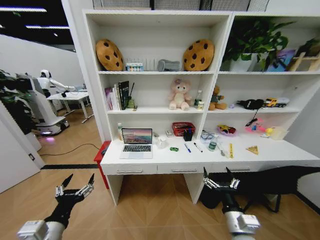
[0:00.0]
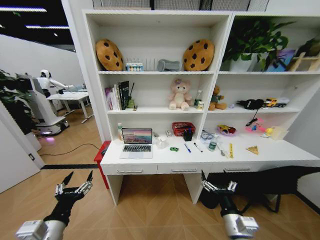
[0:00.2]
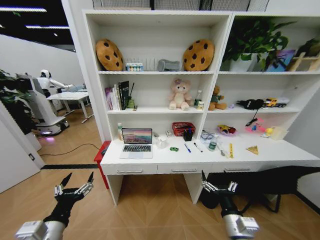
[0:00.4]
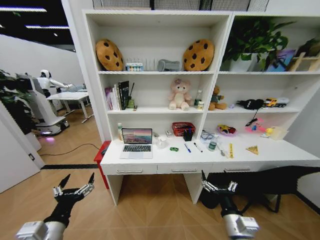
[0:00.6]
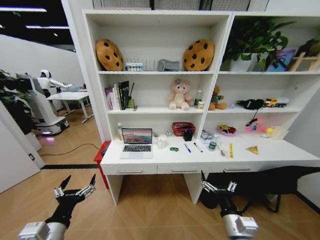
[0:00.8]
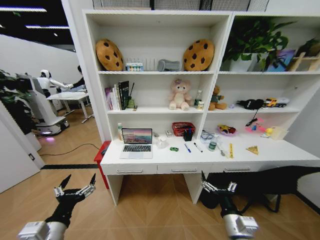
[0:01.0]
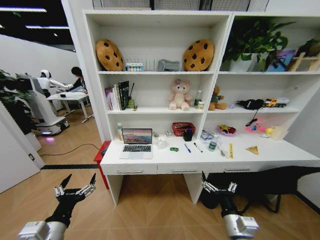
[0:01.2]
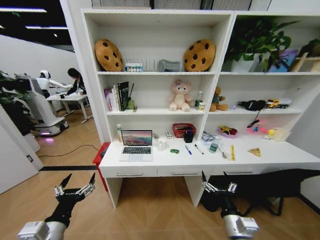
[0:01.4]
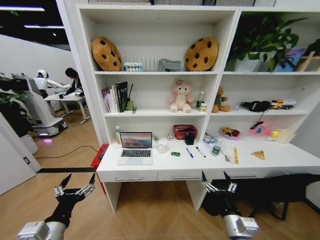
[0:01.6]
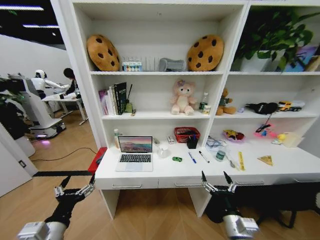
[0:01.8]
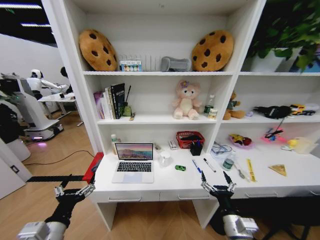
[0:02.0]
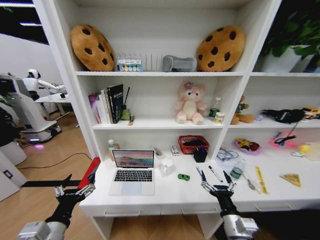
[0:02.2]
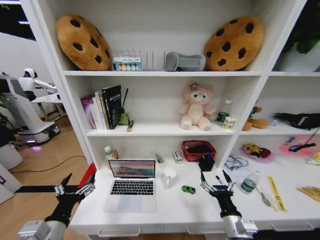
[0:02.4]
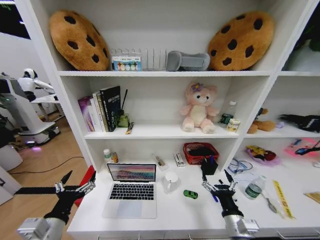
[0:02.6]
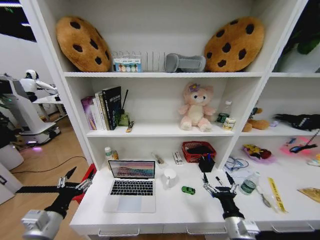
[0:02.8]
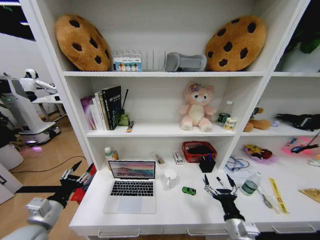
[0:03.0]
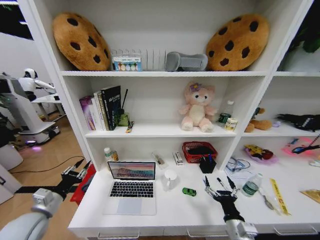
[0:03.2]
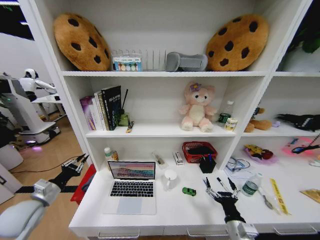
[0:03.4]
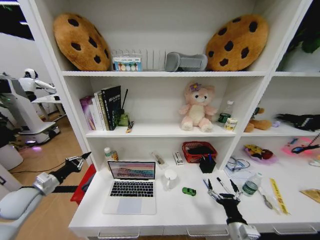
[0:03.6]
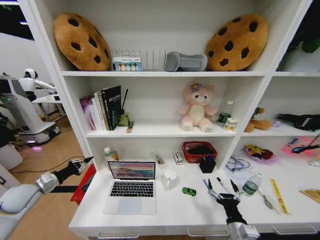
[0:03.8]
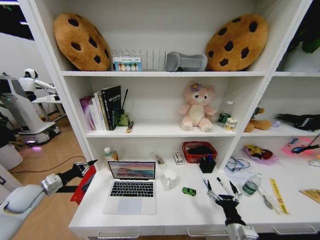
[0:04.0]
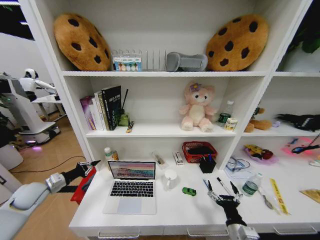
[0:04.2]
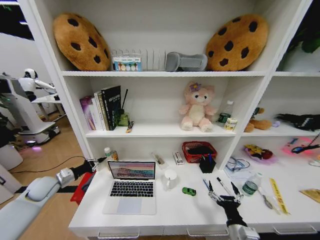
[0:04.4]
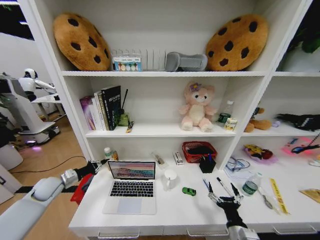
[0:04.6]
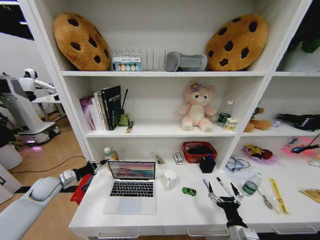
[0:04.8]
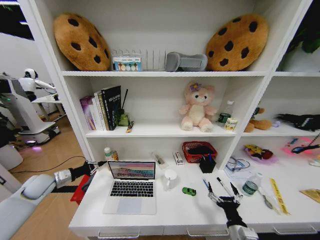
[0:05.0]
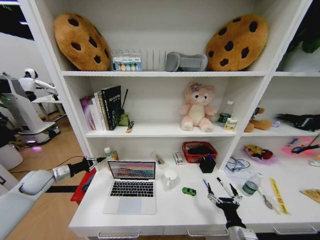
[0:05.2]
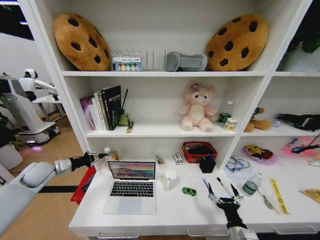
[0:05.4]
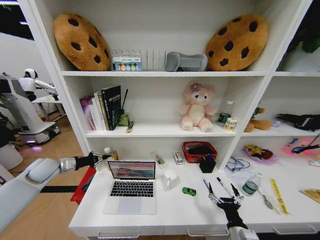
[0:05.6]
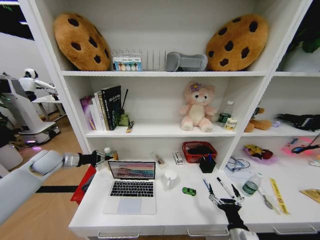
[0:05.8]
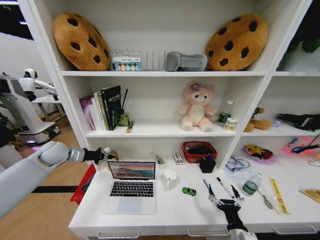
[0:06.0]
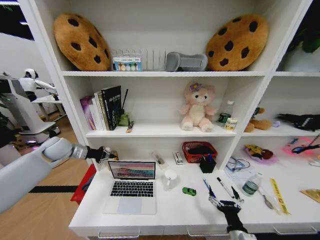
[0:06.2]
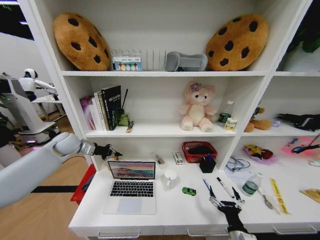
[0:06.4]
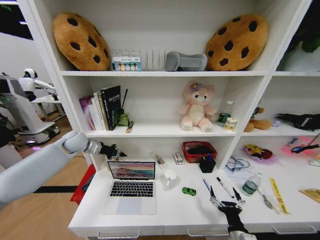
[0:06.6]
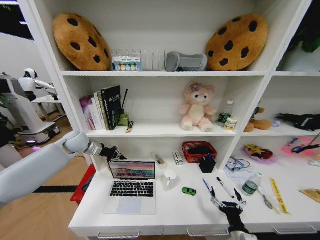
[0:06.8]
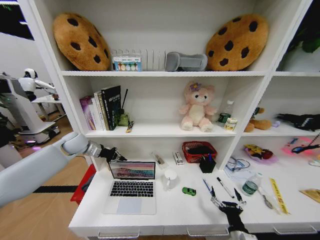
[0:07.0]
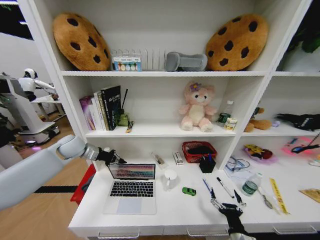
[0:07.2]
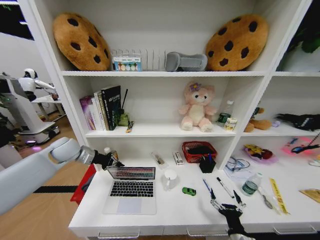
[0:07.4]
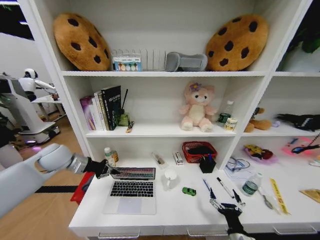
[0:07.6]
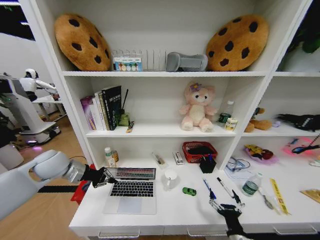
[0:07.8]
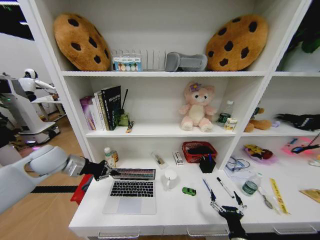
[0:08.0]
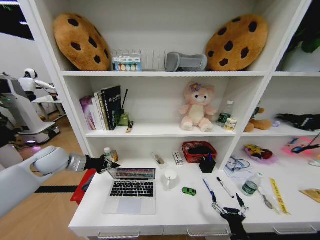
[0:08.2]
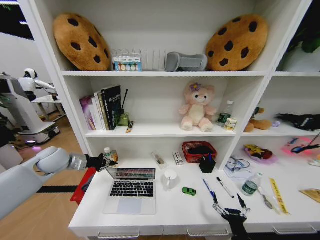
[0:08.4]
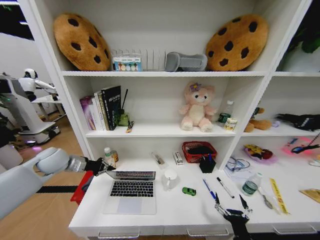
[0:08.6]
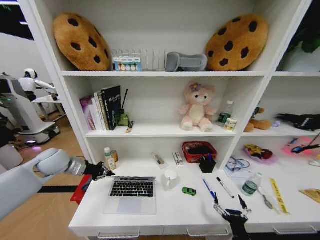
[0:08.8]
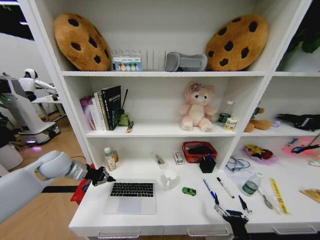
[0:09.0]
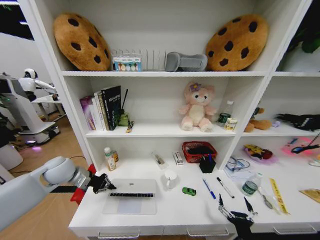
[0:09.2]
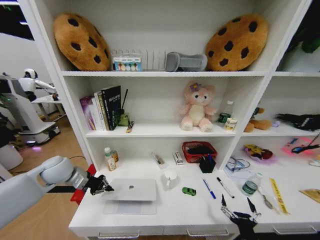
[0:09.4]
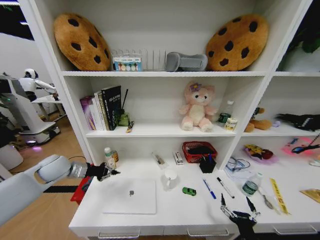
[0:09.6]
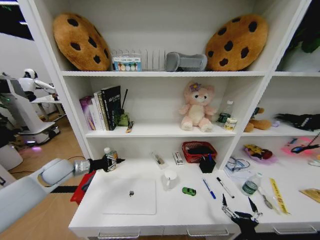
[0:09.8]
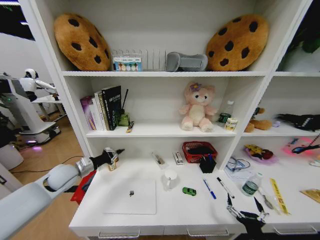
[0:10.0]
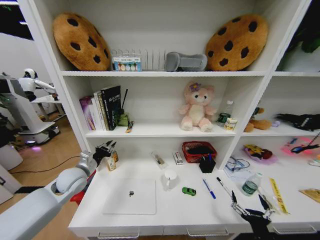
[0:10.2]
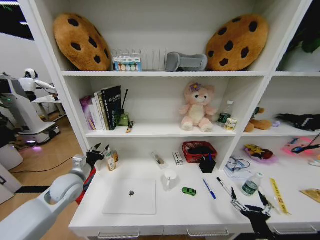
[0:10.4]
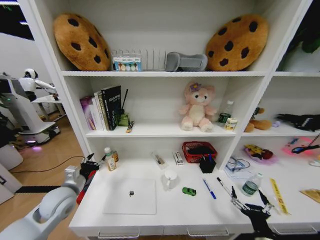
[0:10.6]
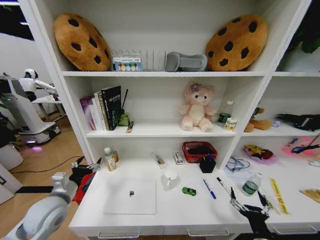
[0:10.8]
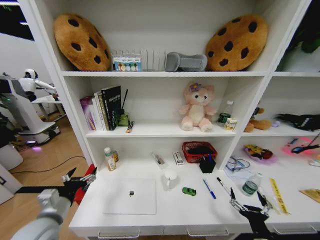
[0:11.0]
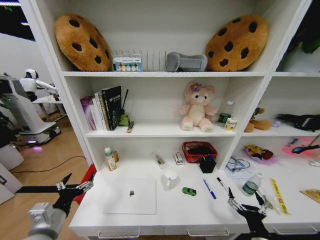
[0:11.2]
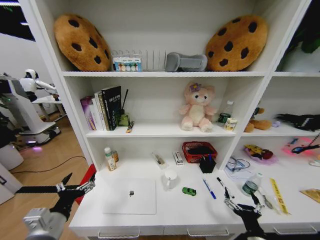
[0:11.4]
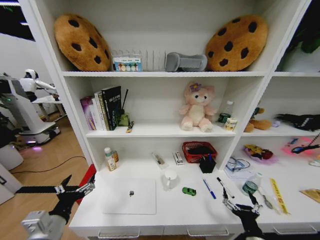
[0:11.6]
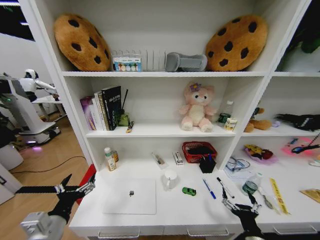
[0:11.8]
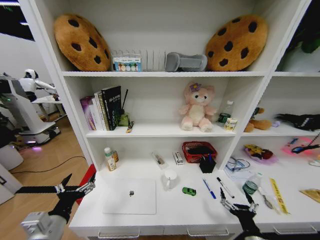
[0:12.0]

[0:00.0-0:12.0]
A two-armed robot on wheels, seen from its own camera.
Task of the whole recording: Organize the objects on the table.
0:01.6 to 0:03.0: The left gripper goes some 10 cm to the left and forward.
0:03.0 to 0:04.4: The left gripper travels forward and to the left by roughly 20 cm, and closes.
0:04.4 to 0:06.0: The left gripper goes approximately 15 cm upward and forward.
0:06.0 to 0:07.6: The left gripper moves roughly 5 cm.
0:07.6 to 0:09.0: The grippers stay close to where they were, moving slightly.
0:09.0 to 0:10.4: The right gripper travels to the right by approximately 5 cm. Meanwhile the left gripper heads downward, backward and to the right, covering some 10 cm, and opens its fingers.
0:10.4 to 0:12.0: The left gripper travels backward by roughly 20 cm, and opens.

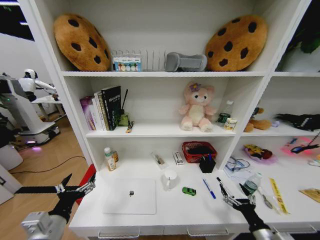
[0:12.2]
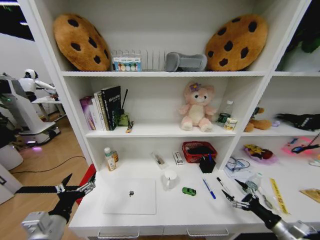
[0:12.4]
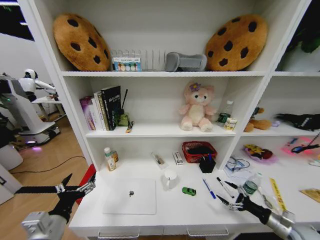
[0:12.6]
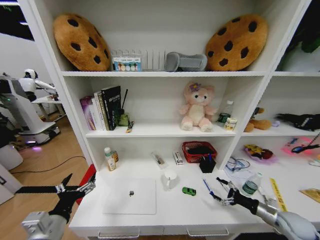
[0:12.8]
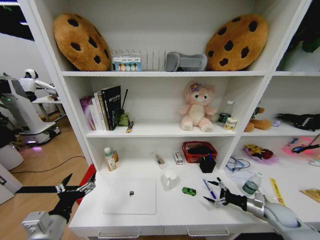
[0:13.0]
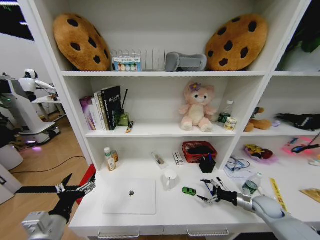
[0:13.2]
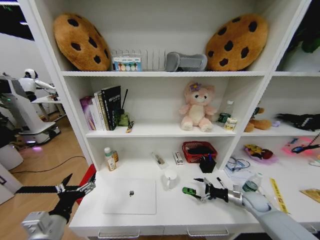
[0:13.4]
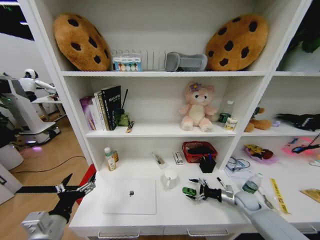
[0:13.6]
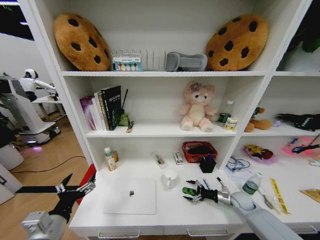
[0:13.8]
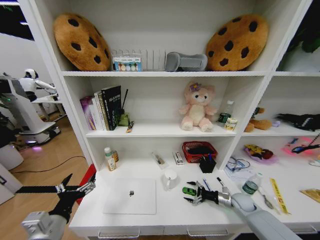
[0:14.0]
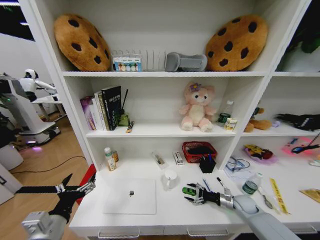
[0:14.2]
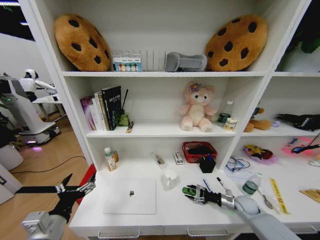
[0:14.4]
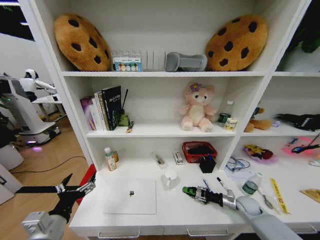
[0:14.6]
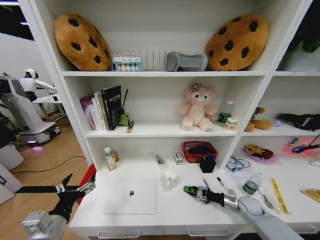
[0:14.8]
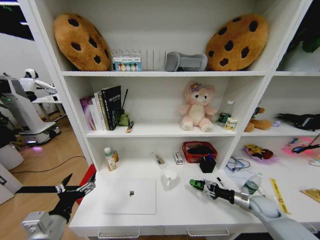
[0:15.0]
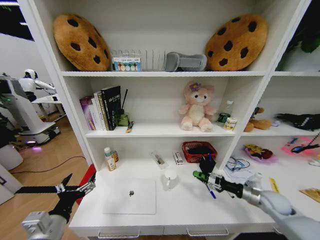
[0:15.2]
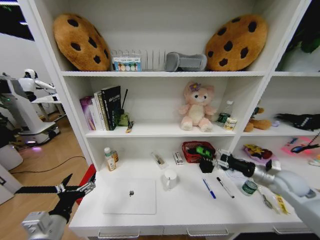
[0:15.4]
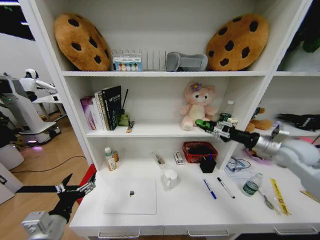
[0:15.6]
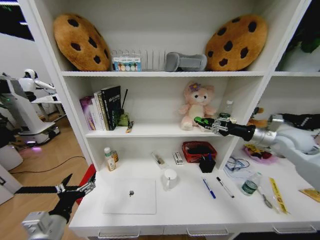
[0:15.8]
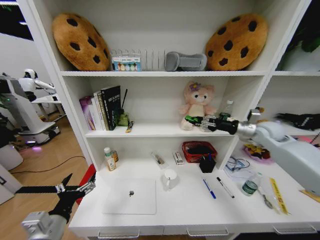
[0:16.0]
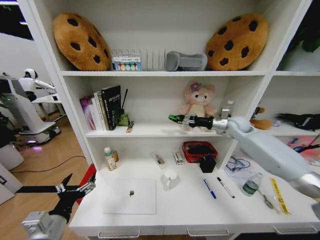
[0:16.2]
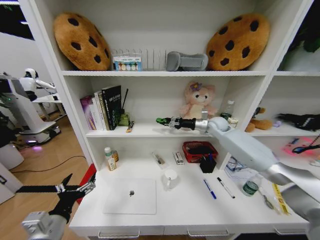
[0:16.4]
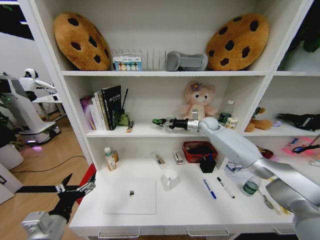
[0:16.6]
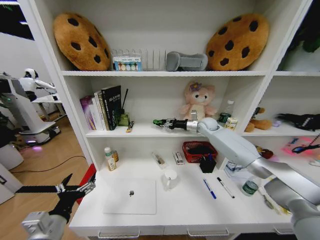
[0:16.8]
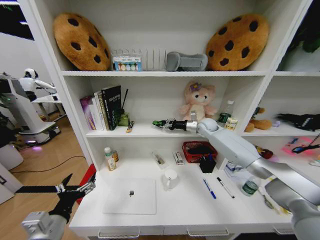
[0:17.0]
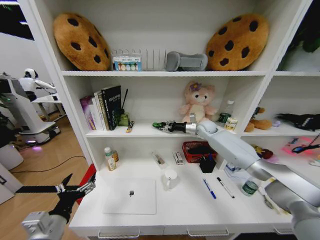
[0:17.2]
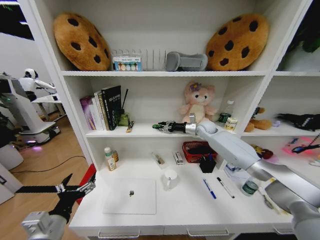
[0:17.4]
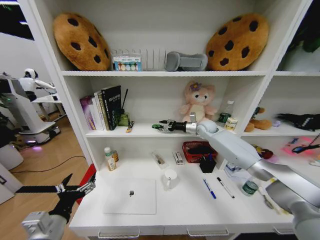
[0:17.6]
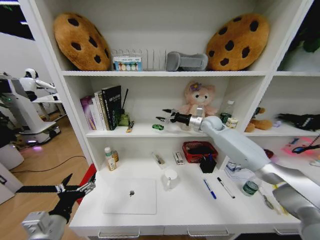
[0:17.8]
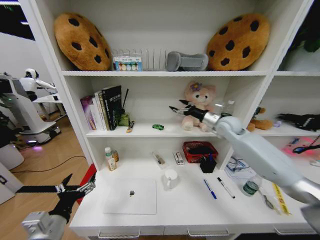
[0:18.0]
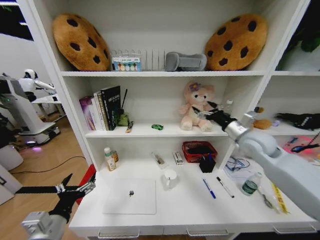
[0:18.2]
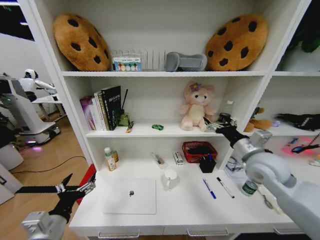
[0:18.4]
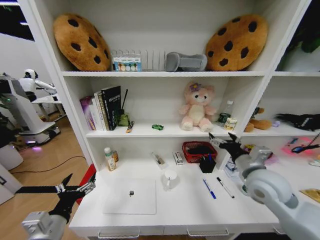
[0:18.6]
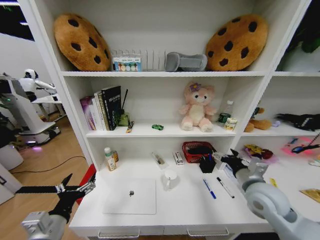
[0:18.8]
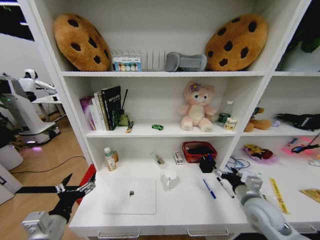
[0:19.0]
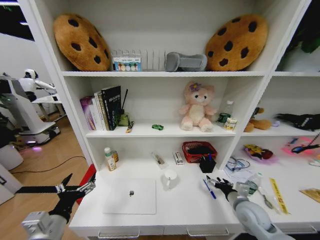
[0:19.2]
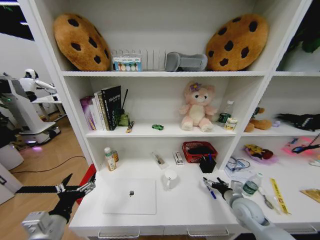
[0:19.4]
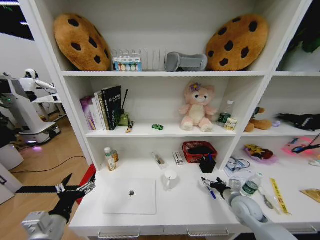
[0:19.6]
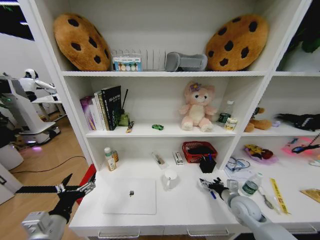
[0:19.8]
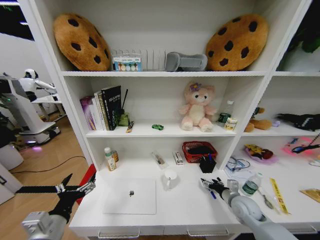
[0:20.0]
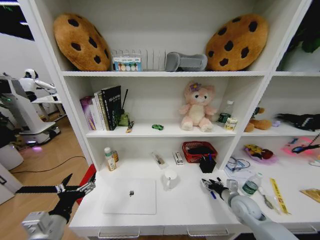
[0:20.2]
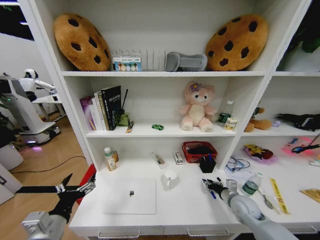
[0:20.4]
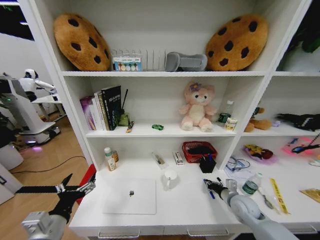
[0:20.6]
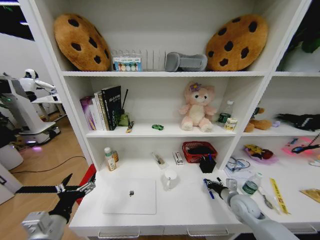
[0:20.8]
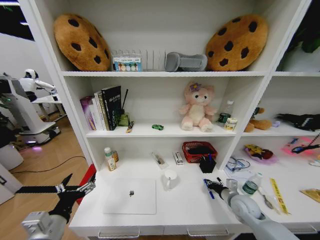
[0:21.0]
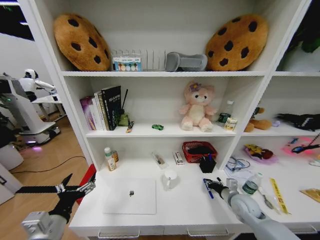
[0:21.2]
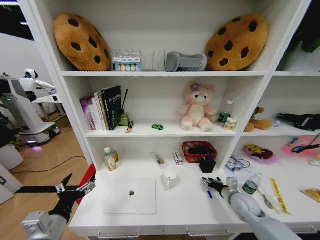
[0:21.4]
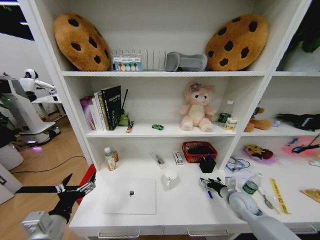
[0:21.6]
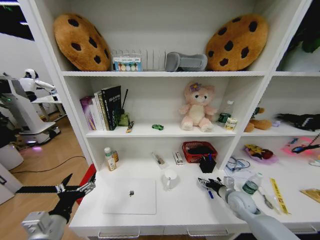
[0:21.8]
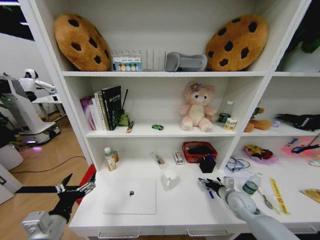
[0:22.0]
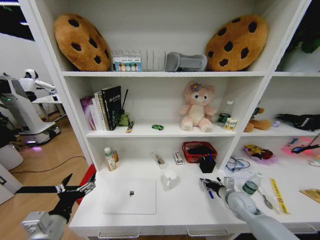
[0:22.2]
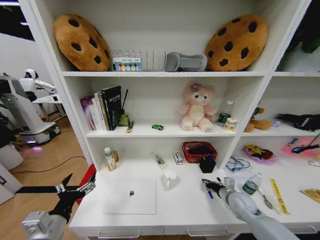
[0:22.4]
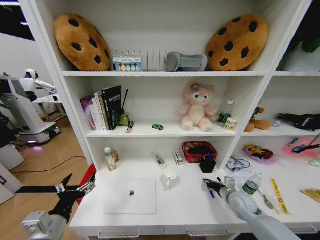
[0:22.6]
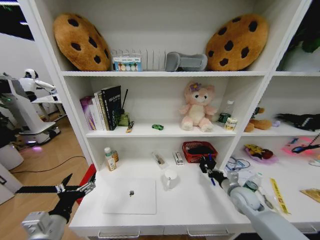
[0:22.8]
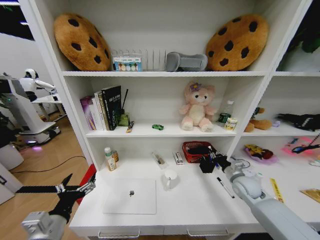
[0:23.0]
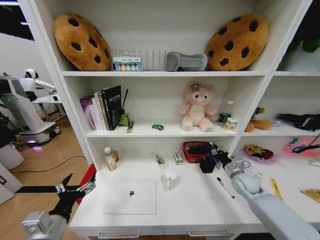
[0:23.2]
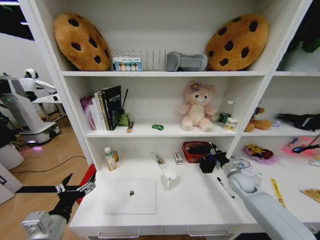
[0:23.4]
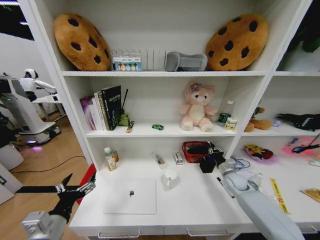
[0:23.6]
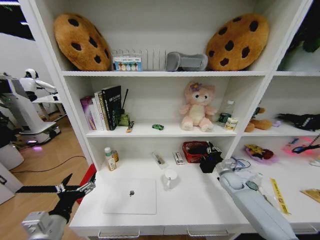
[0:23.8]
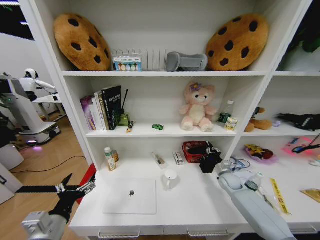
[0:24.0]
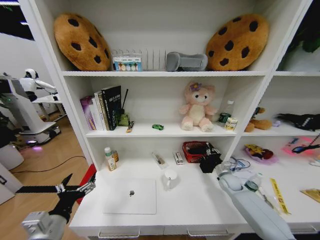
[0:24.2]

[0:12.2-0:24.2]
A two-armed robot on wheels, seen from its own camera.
Task of the whole recording: Organize the objects on the table.
0:12.2 to 0:13.8: The right gripper moves forward, about 20 cm.
0:13.8 to 0:15.2: The right gripper goes some 10 cm upward, and closes.
0:15.2 to 0:16.6: The right gripper heads forward, to the left and upward, covering about 40 cm.
0:16.6 to 0:18.2: The right gripper travels backward by roughly 20 cm, and opens up.
0:18.2 to 0:19.8: The right gripper shifts about 30 cm downward and backward.
0:19.8 to 0:21.2: The right gripper closes.
0:21.2 to 0:22.6: The right gripper opens and closes again.
0:22.6 to 0:24.2: The right gripper travels forward by some 10 cm.
